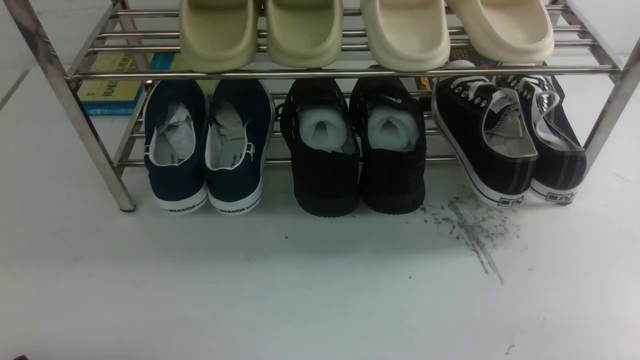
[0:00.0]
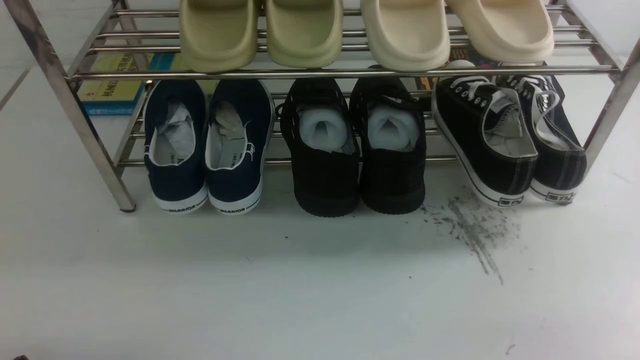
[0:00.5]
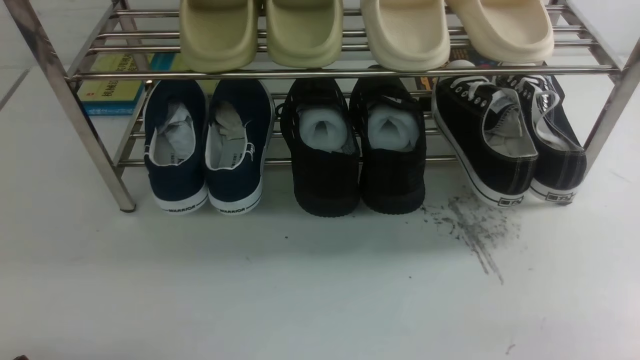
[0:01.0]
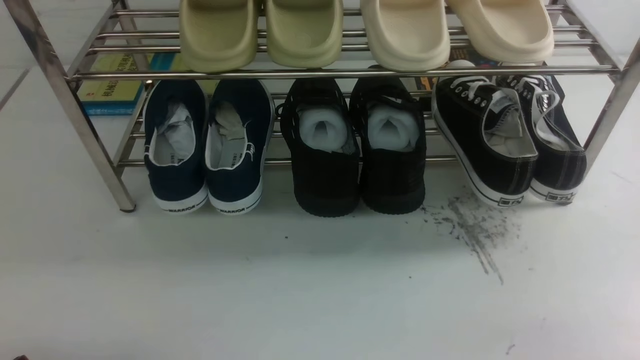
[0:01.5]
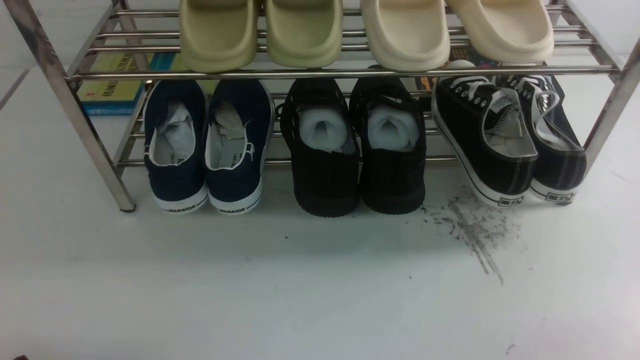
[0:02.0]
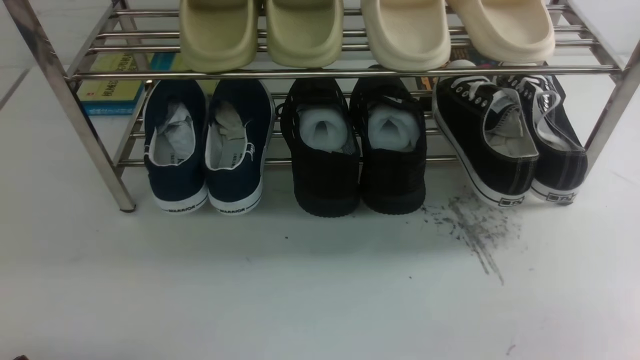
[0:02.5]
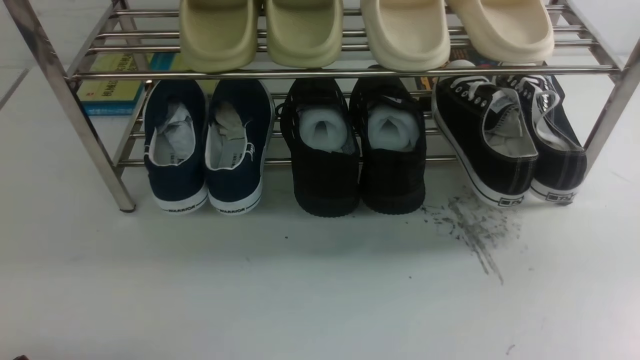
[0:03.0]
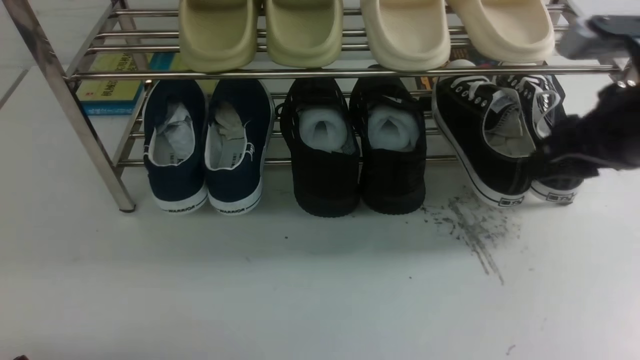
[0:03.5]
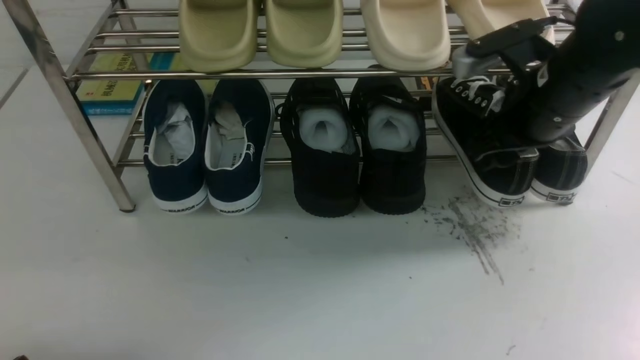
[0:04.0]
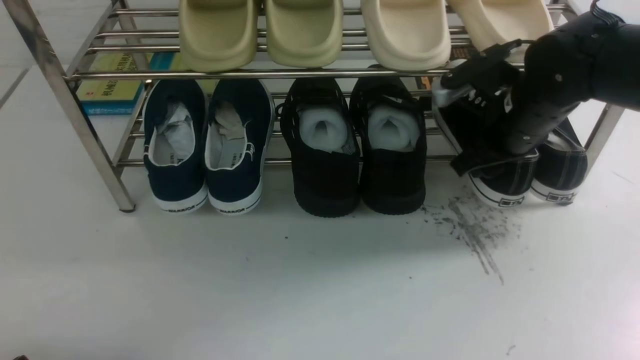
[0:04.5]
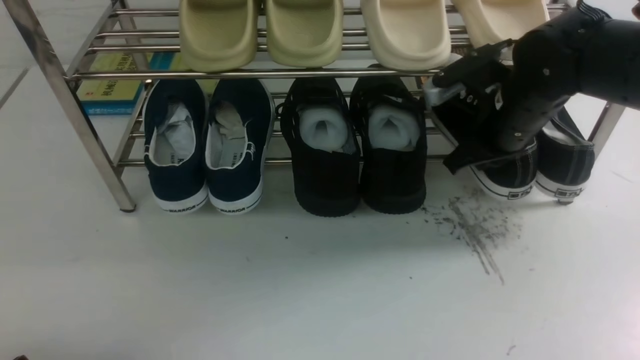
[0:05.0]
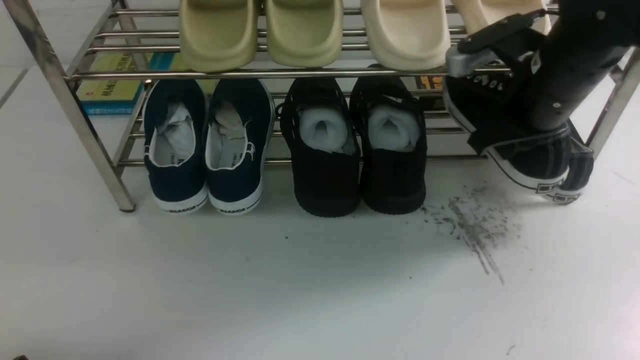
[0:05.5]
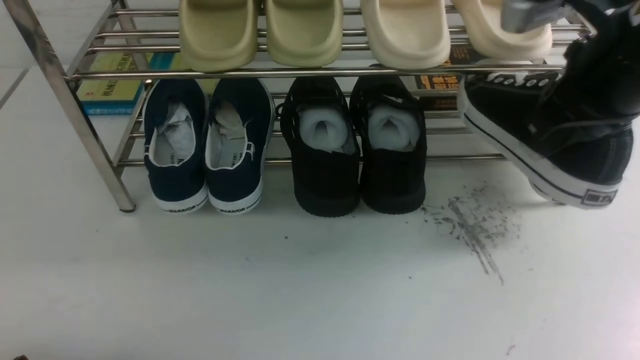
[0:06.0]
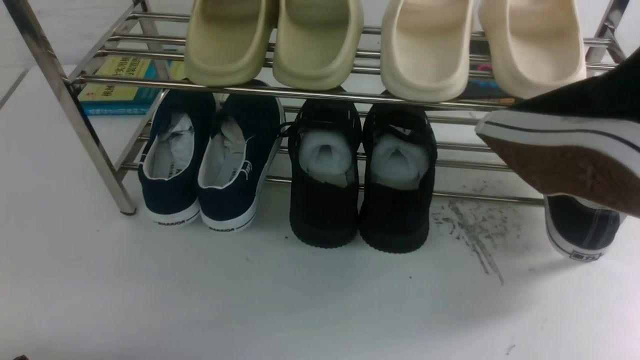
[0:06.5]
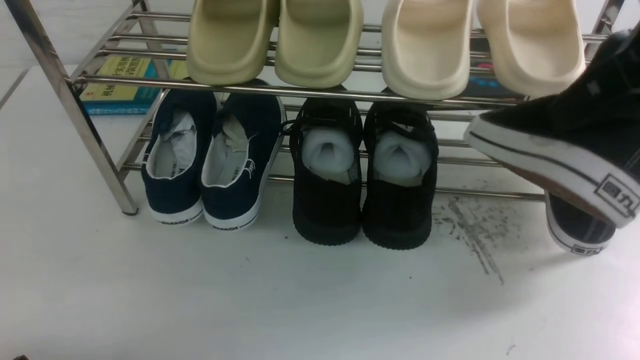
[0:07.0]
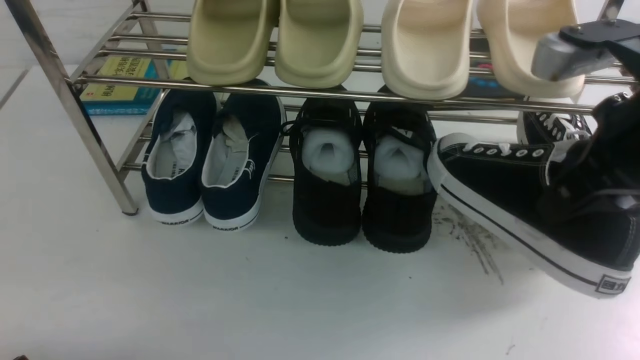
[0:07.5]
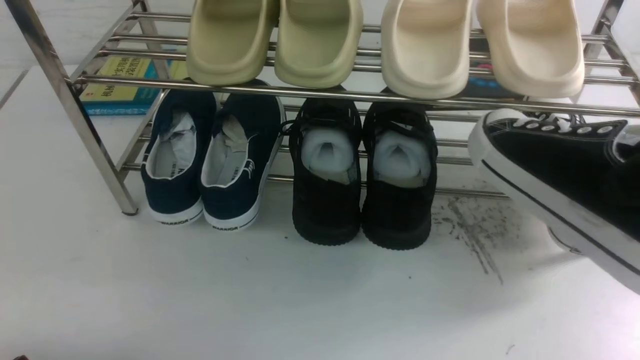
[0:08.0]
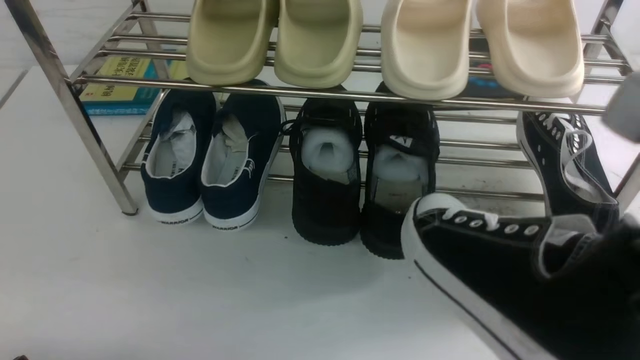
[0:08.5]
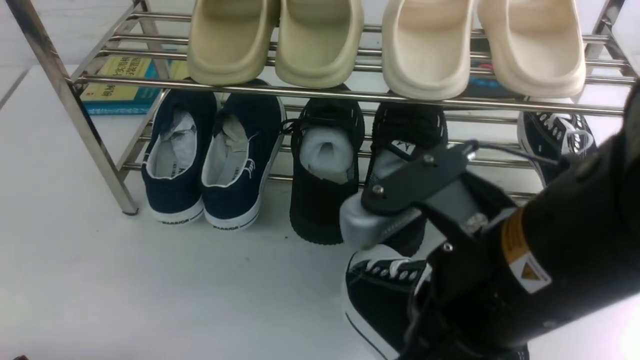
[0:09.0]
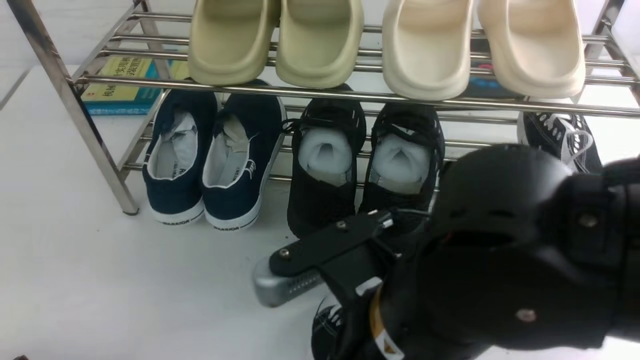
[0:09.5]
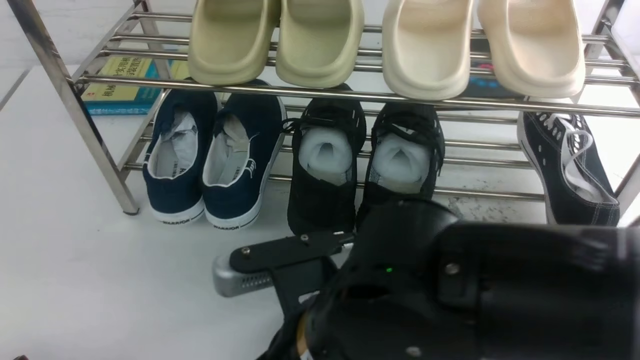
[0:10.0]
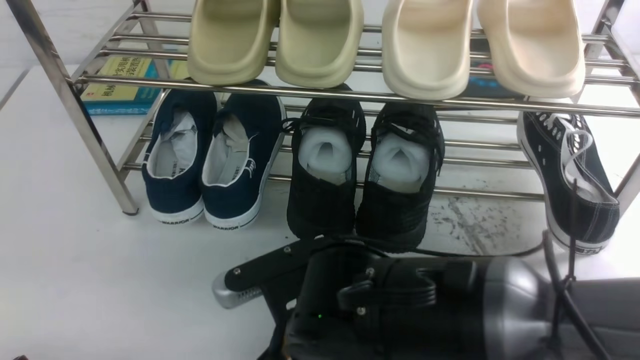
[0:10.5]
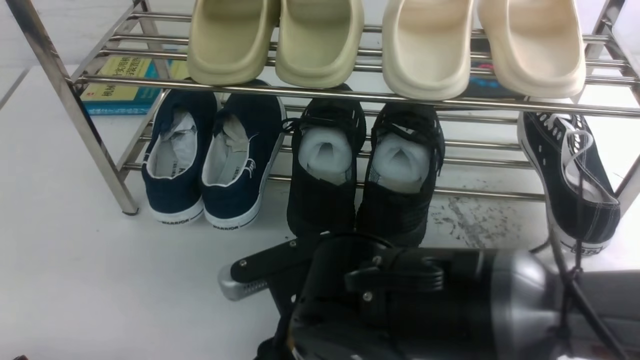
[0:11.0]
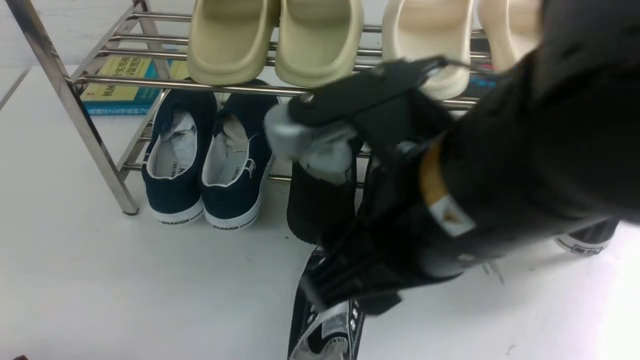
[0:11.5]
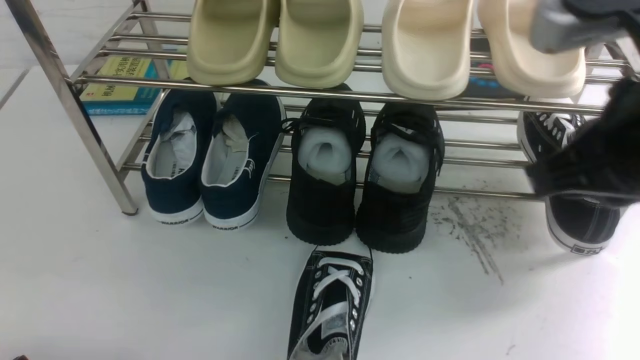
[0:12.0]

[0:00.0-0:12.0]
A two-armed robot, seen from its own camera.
Step, 0:00.0 to 0:05.5: use the right arm to clamp a shoe on the right side of the shoe rack.
Step, 0:06.0 to 0:11.5: use the right arm to take out the clamped shoe from the shoe rack and put it down.
0:02.0 to 0:04.0: The right gripper shifts approximately 30 cm forward and upward, and opens its fingers.
0:04.0 to 0:06.0: The right gripper heads upward and backward, covering about 10 cm, and closes.
0:06.0 to 0:08.0: The right gripper goes approximately 10 cm backward.
0:08.0 to 0:10.0: The right gripper heads to the left and downward, covering about 30 cm.
0:10.0 to 0:12.0: The right gripper is displaced to the right and upward by some 25 cm, and opens, then closes again.

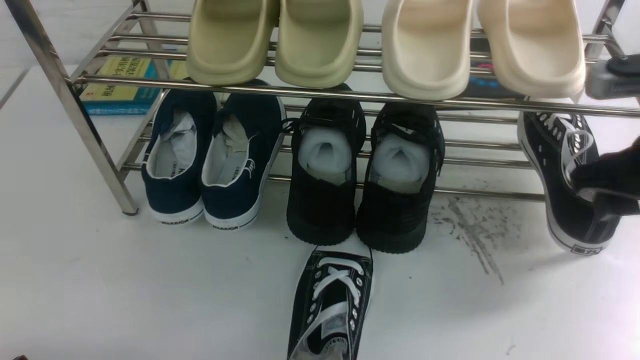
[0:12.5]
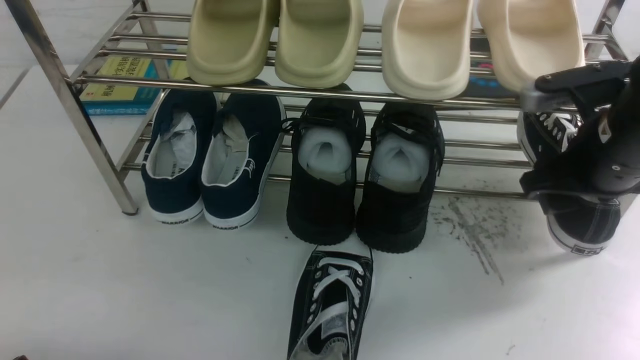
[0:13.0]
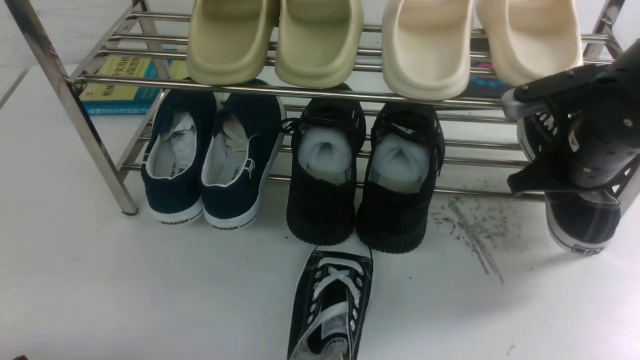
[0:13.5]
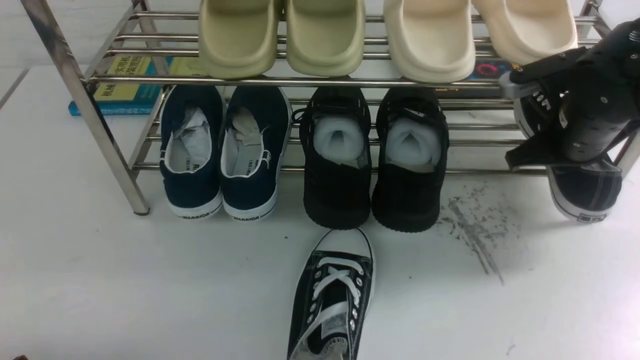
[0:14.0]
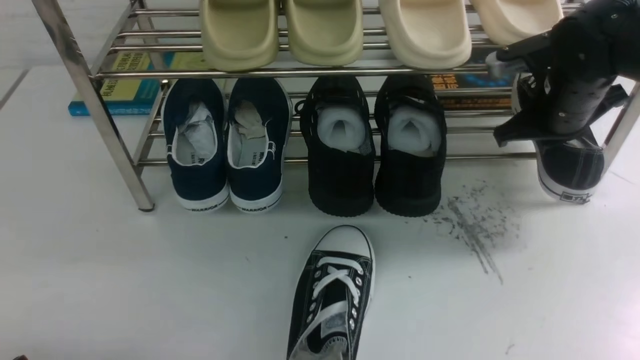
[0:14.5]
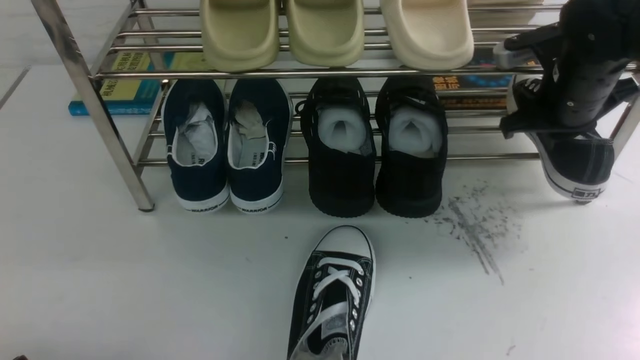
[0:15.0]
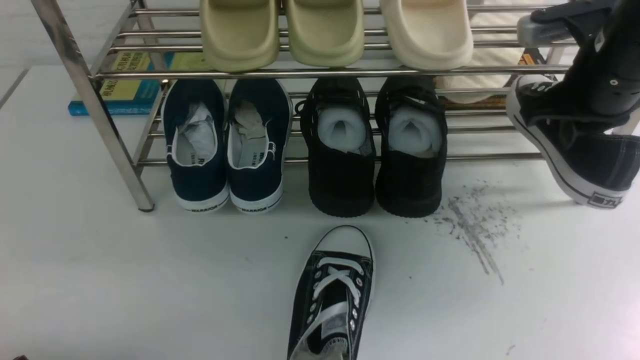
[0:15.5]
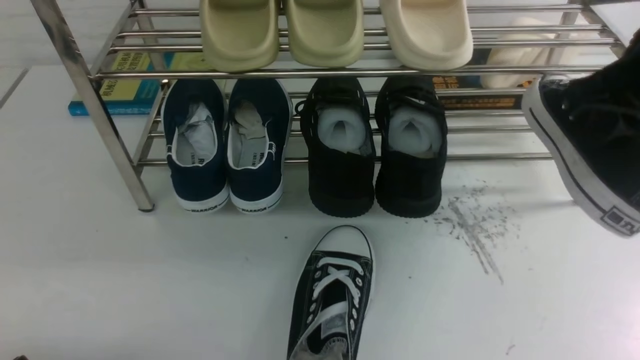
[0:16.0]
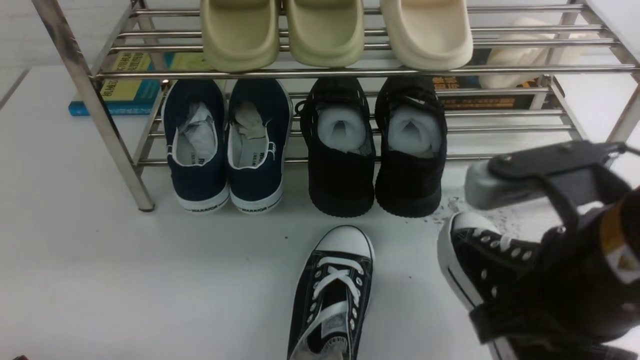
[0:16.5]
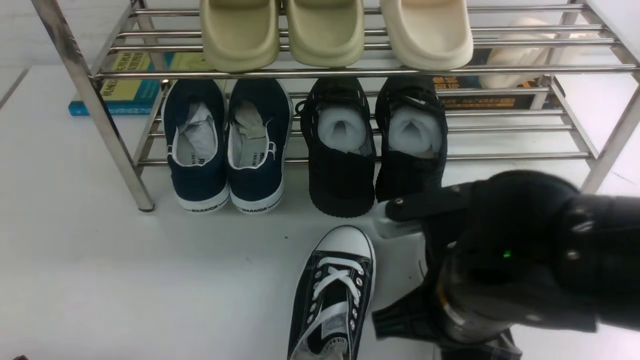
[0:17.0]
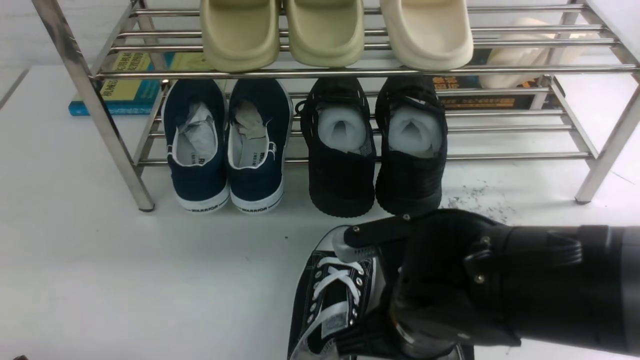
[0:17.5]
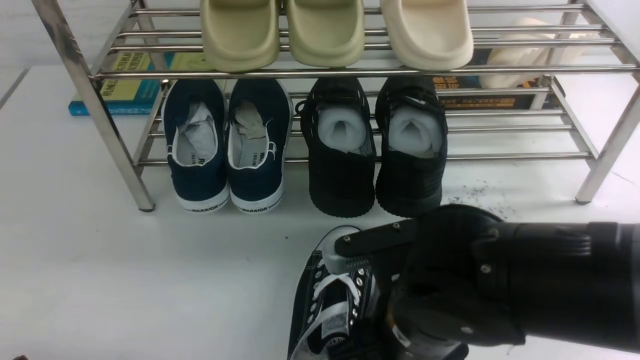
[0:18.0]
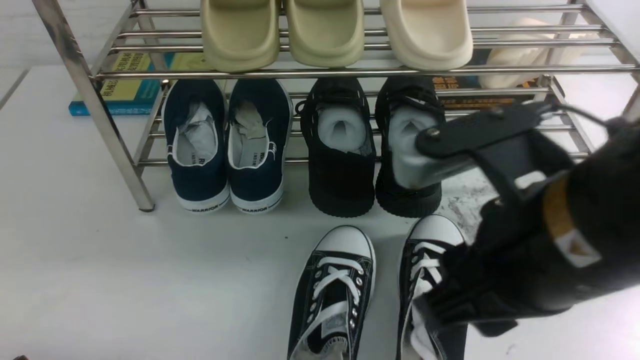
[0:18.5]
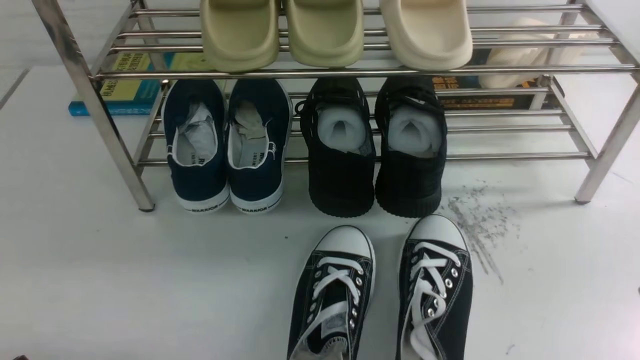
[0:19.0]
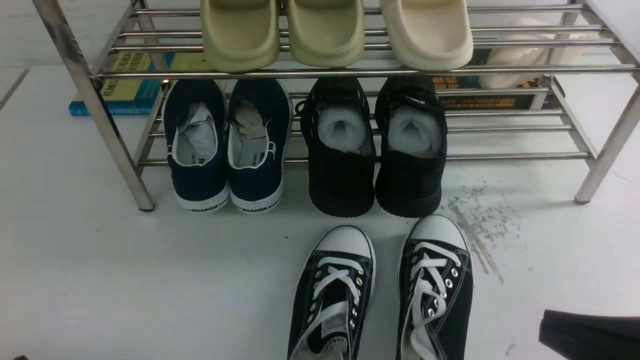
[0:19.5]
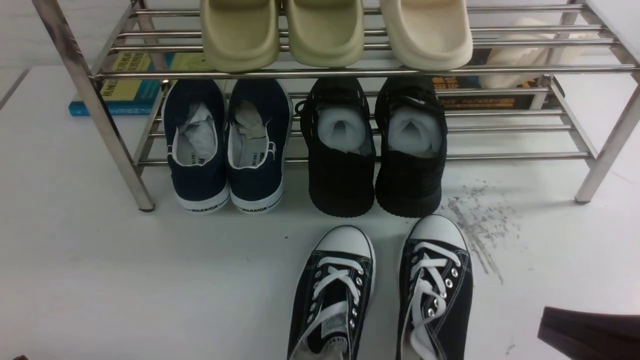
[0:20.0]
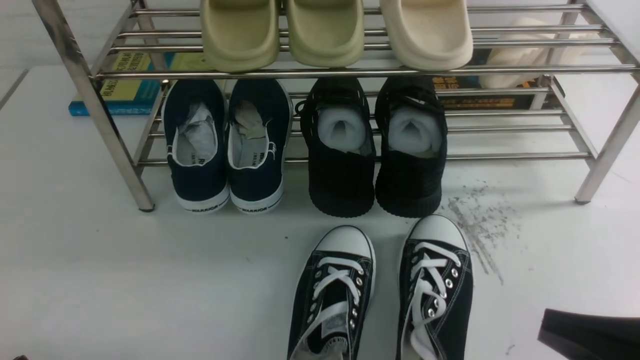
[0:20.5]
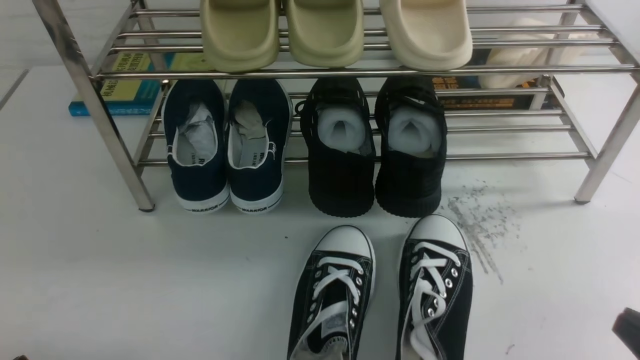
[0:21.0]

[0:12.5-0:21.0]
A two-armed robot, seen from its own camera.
Step, 0:12.5 to 0:15.5: use the right arm to clamp a shoe on the right side of the shoe rack.
Step, 0:16.0 to 0:18.0: use the right arm to take out the clamped shoe from the shoe rack and put it down.
0:12.5 to 0:14.5: The right gripper shifts roughly 15 cm forward and downward, and closes its fingers.
0:14.5 to 0:16.5: The right gripper moves backward, roughly 25 cm.
0:16.5 to 0:19.0: The right gripper moves to the right and backward, about 10 cm, and opens and closes again.
